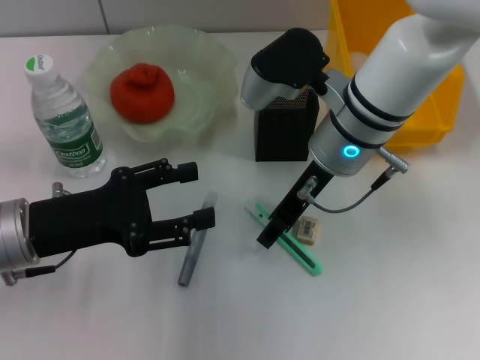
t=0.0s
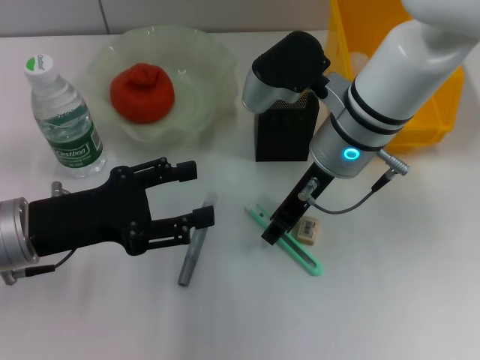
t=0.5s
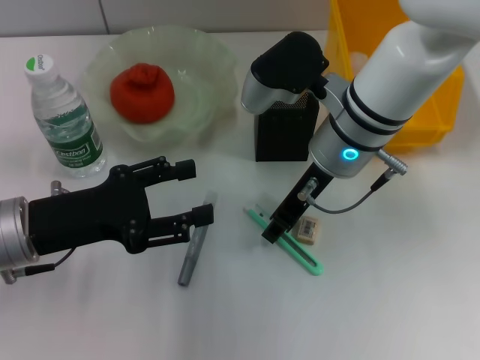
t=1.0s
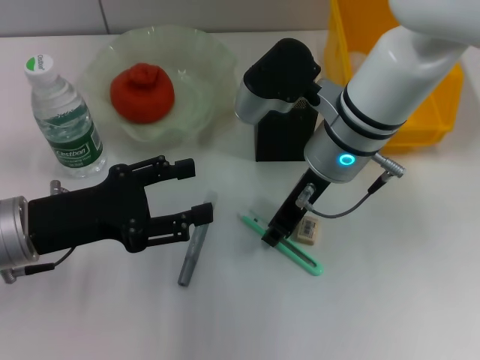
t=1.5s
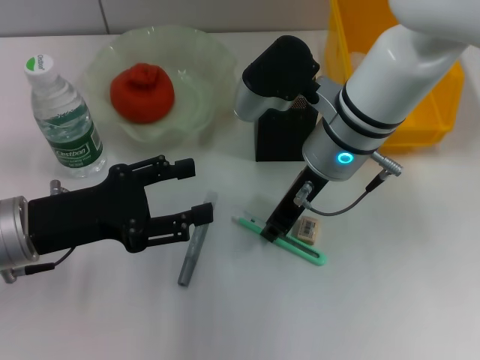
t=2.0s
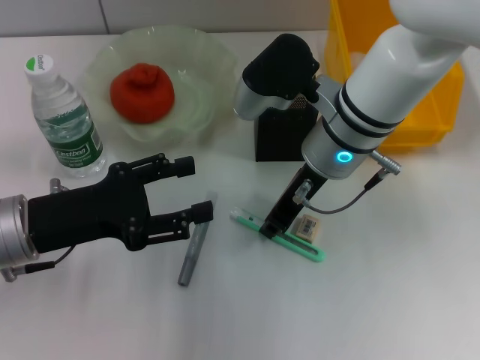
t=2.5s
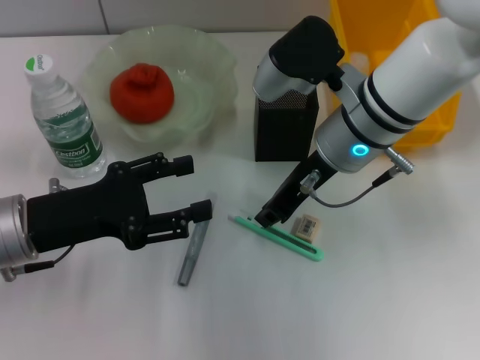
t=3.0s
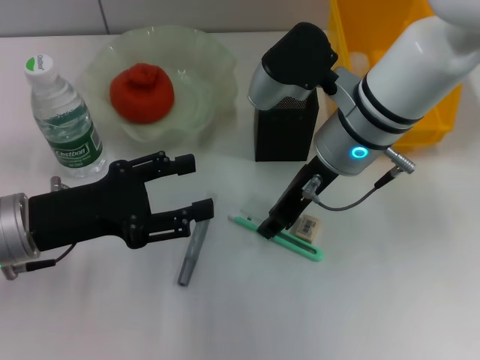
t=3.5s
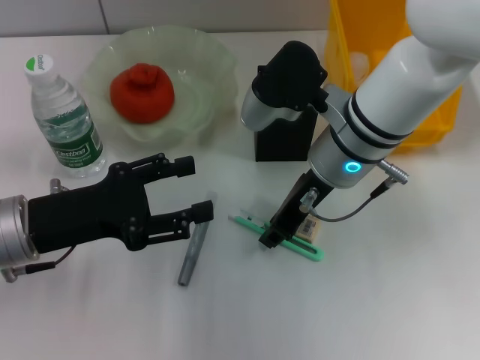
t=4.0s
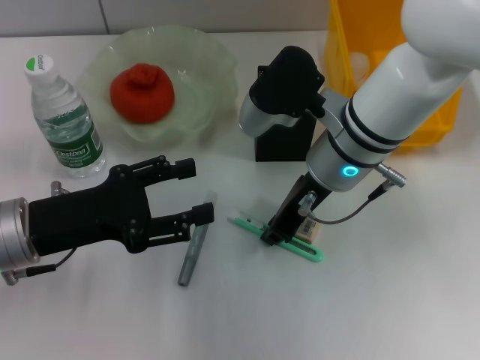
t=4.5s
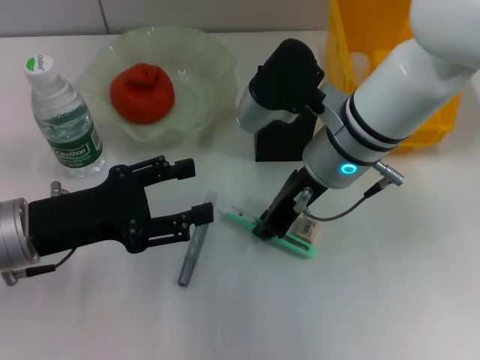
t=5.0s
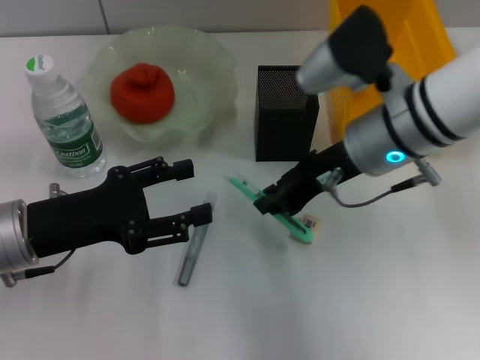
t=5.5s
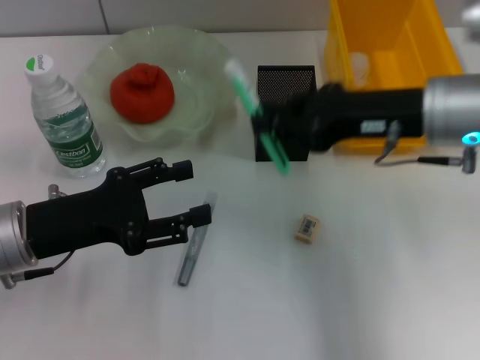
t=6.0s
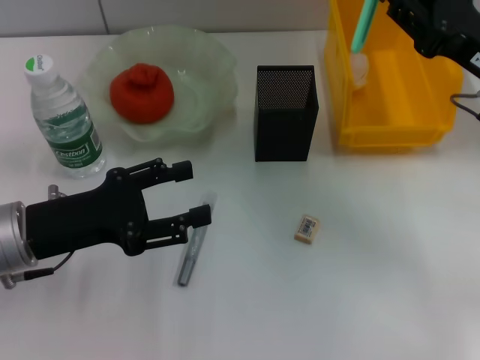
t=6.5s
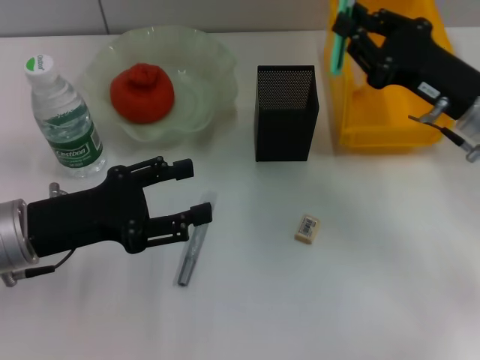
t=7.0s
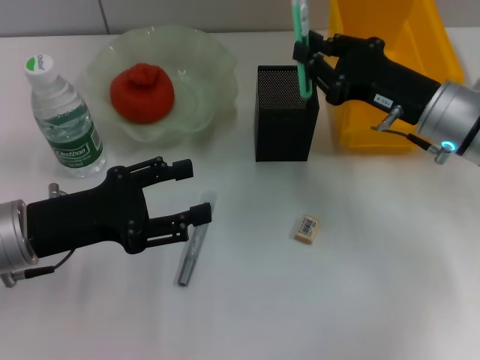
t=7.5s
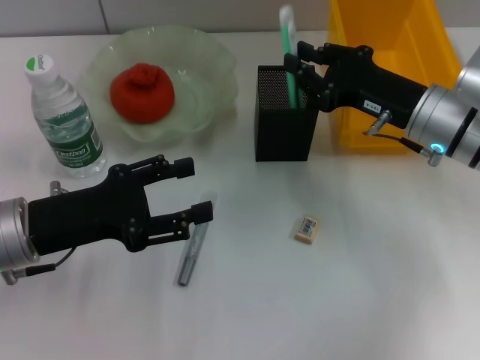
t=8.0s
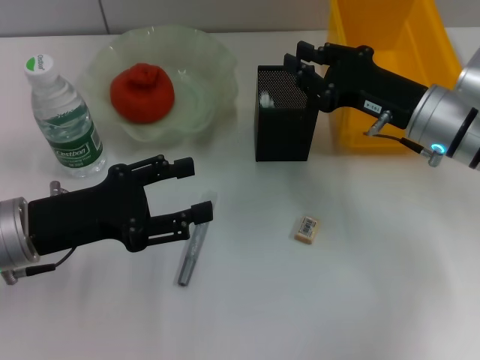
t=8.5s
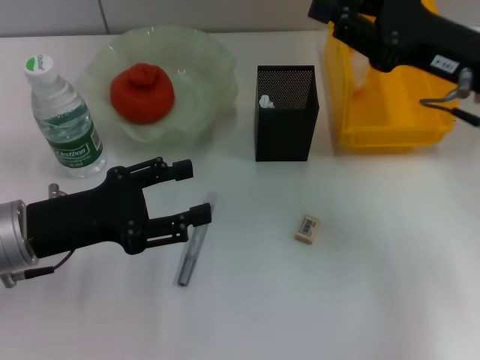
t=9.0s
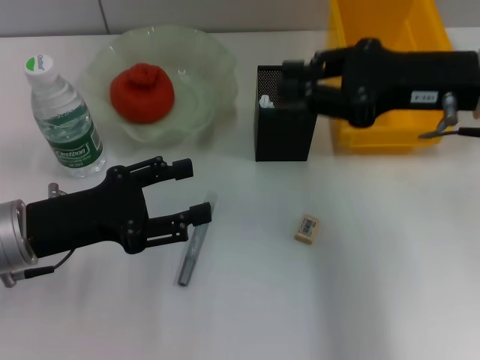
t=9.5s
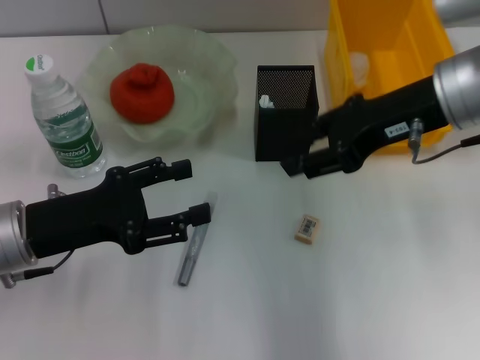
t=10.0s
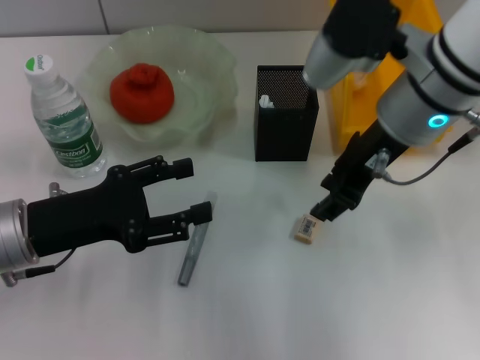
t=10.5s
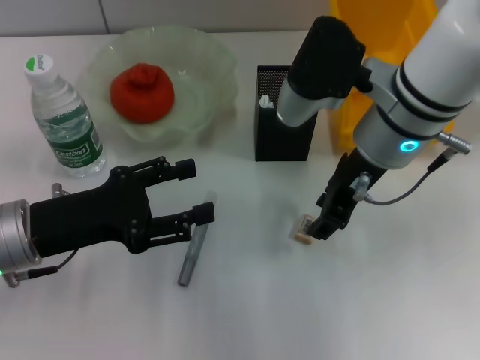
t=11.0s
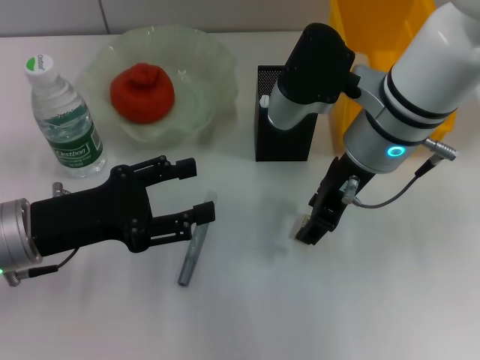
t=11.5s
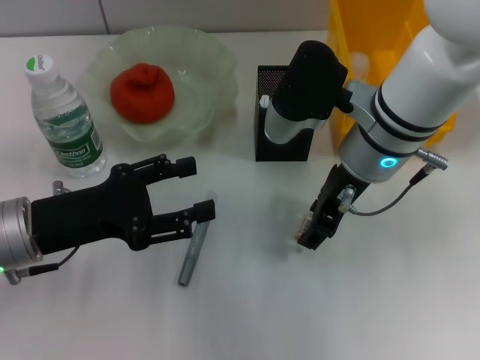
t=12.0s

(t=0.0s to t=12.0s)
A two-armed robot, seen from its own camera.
Step, t=0.0s - t=4.5s: Grab the blue utility knife with the right hand.
Step, t=5.0s - t=8.5s: Place the blue utility knife into the pen holder with the right hand.
t=0.0s - t=2.0s: The right gripper closes.
t=2.0s - t=4.0s: The grippers stay close to where they were, moving slightly.
t=4.0s - t=6.0s: The right gripper goes about 10 cm to the right.
t=6.0s - t=8.0s: The right gripper moves downward, approximately 10 cm.
t=8.0s - t=10.0s: The right gripper goes some 10 cm upward.
t=10.0s - t=12.0s: The right gripper shifts roughly 10 cm to the left and downward, and opens its fingers.

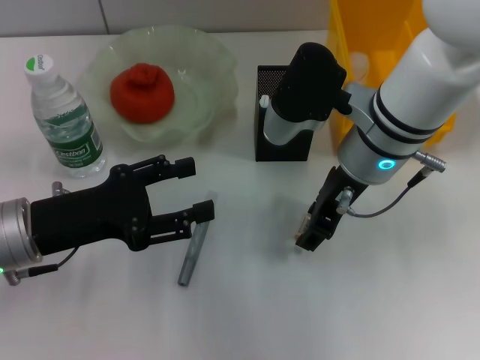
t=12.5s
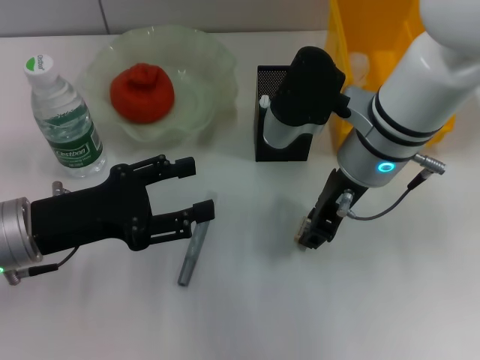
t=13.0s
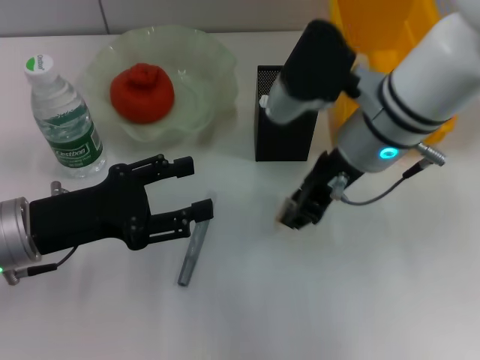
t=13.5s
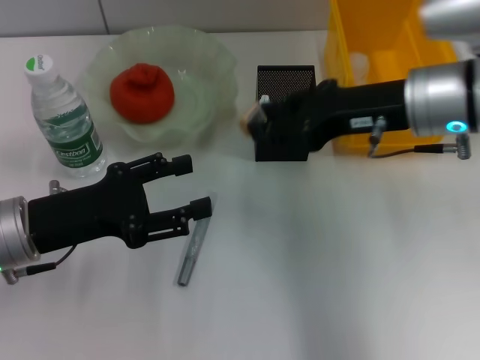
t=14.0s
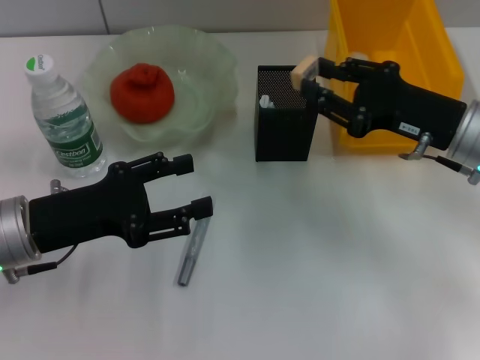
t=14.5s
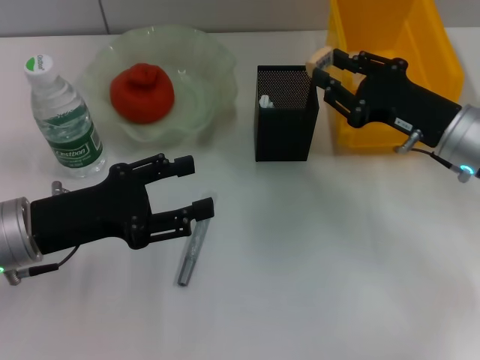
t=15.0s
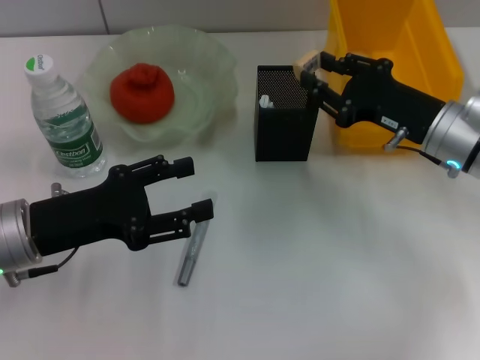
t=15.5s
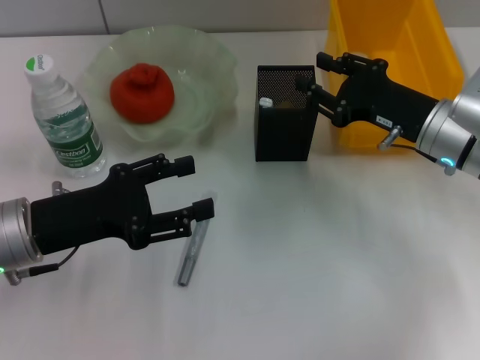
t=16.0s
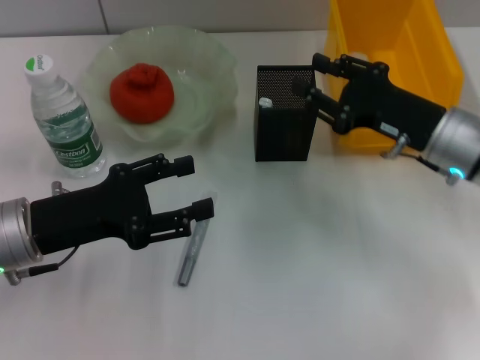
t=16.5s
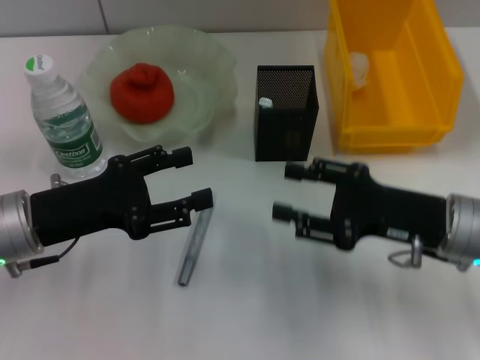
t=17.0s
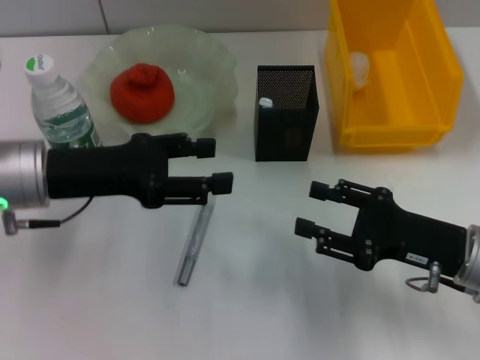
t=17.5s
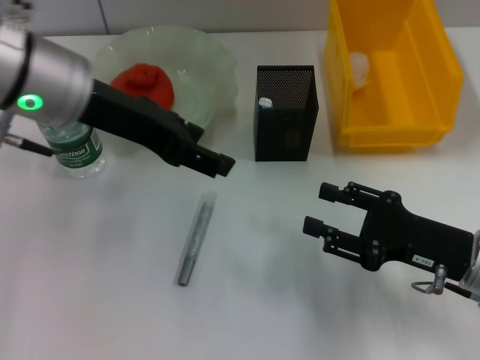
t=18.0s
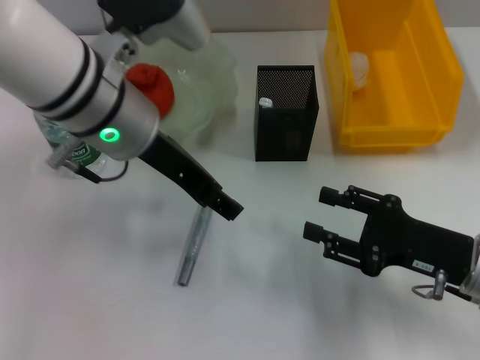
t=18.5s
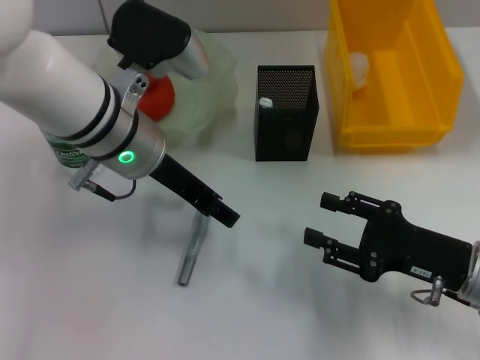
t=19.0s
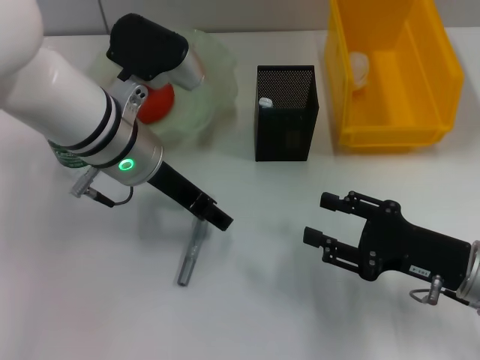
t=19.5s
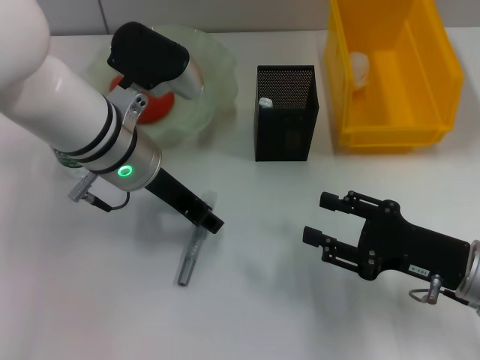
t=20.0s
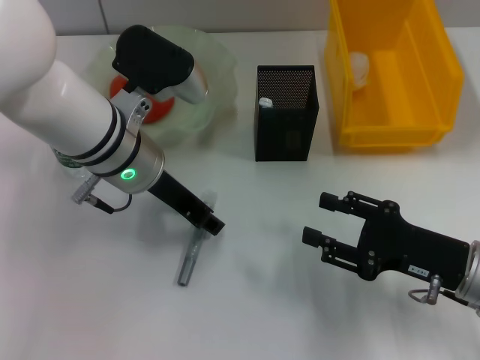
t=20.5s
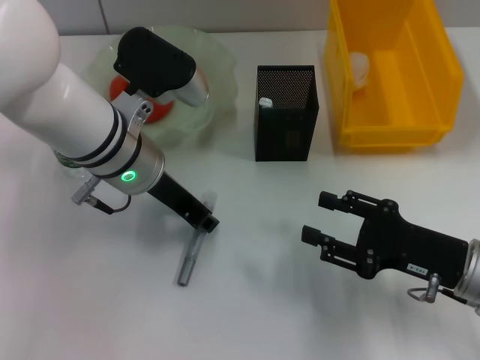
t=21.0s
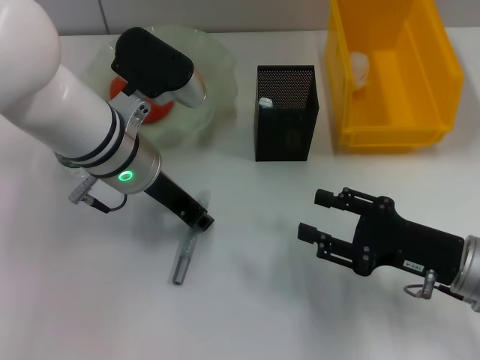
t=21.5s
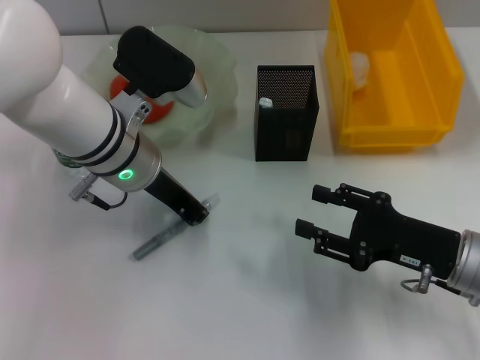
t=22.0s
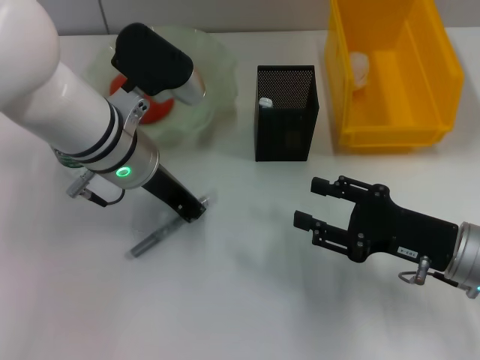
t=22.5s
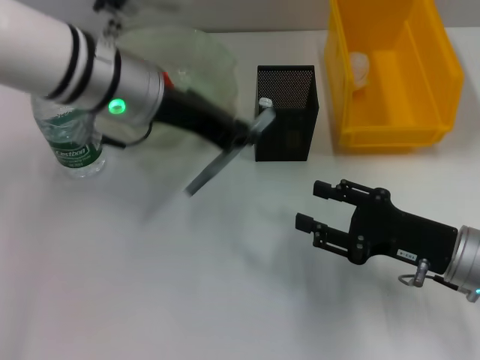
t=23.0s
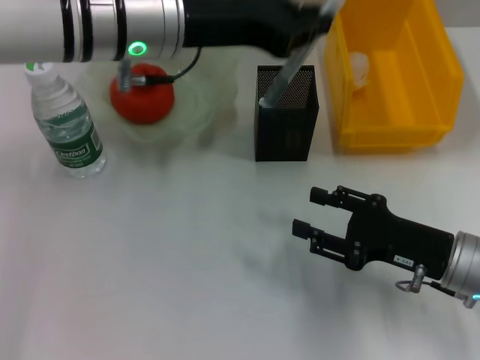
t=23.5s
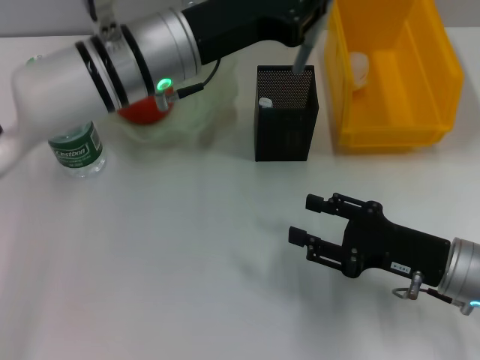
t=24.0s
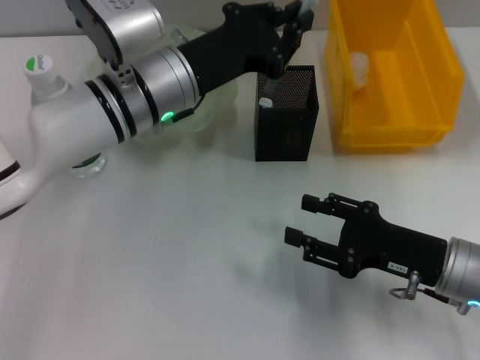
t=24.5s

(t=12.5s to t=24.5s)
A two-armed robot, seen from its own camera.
Step, t=13.5s - t=16.0s: Put the eraser into the pen holder with the right hand.
Step, t=16.5s - t=22.0s: Grab the gray glue with the left hand.
t=12.5s - t=14.5s: The right gripper heads to the right, covering approximately 15 cm.
t=14.5s - t=16.5s: The grippers move only a little.
t=16.5s - t=18.5s: The left gripper moves to the right, upward and forward, about 20 cm, while the right gripper is displaced backward by approximately 10 cm.
t=18.5s - t=20.5s: The left gripper shifts some 5 cm downward.
t=20.5s - t=22.5s: The left gripper closes its fingers.
t=22.5s - t=24.5s: The left gripper moves roughly 10 cm upward and comes back.

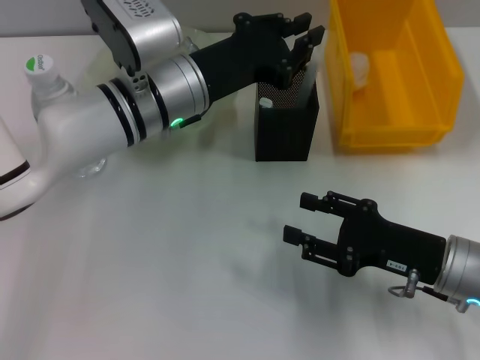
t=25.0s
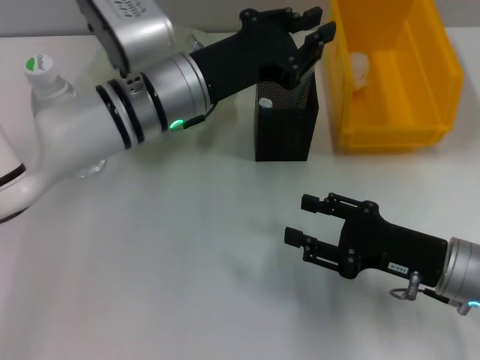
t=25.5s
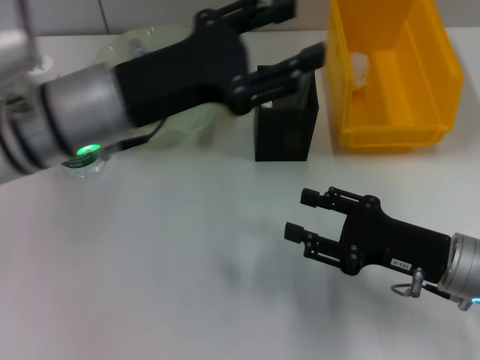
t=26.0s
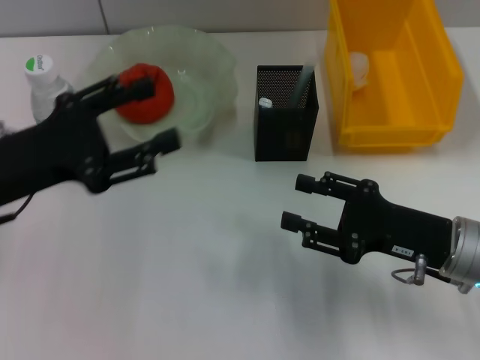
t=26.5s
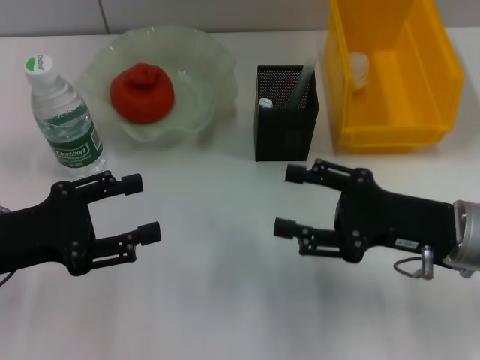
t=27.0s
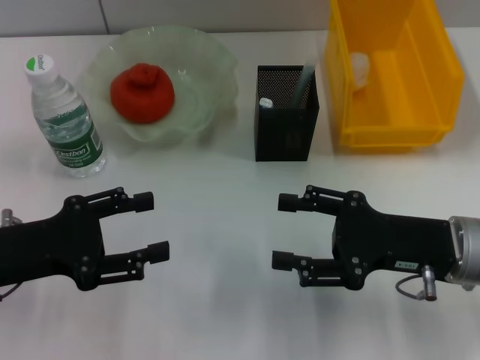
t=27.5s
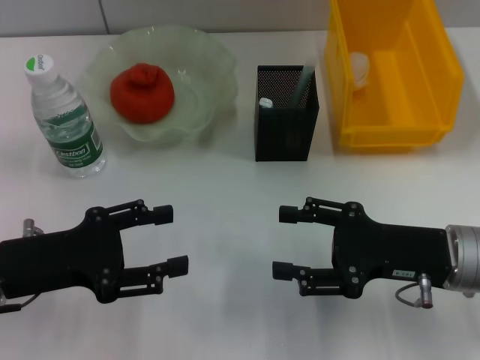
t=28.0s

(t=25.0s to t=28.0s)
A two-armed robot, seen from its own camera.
t=25.0s - t=26.5s: The left gripper heads to the left and backward, covering some 20 cm, and opens its fingers.
t=26.5s - t=28.0s: The left gripper moves downward, roughly 5 cm.
